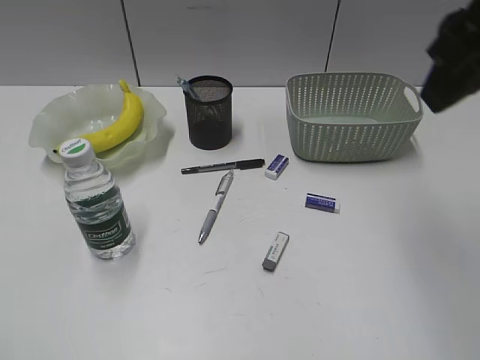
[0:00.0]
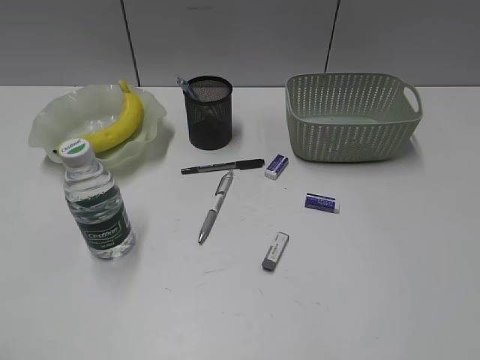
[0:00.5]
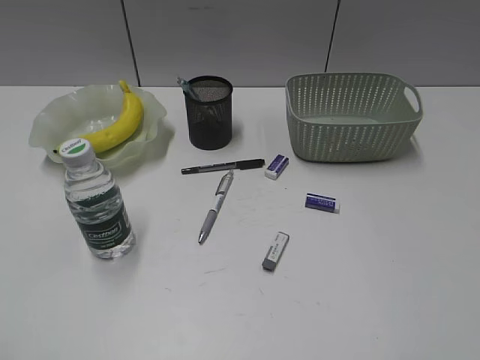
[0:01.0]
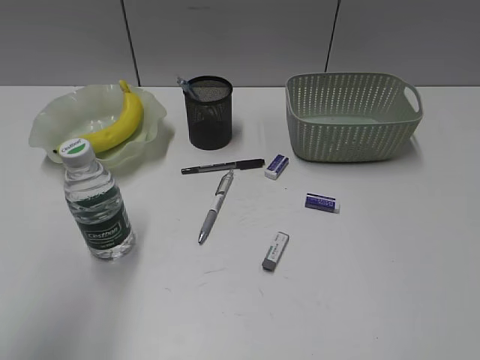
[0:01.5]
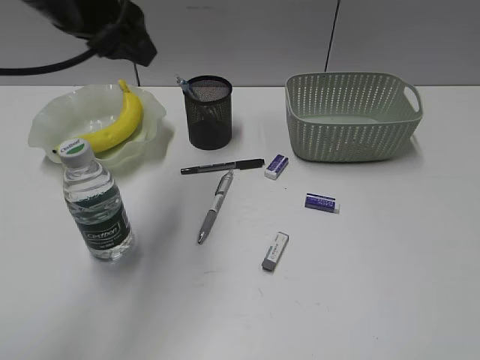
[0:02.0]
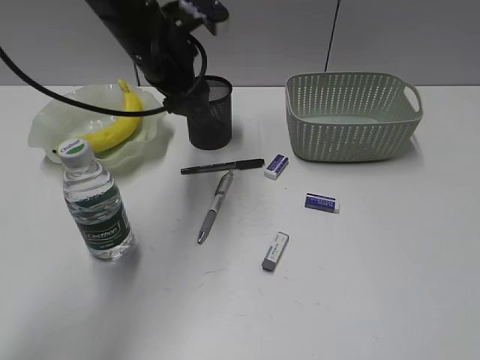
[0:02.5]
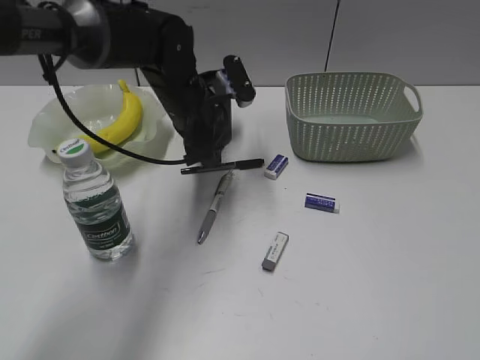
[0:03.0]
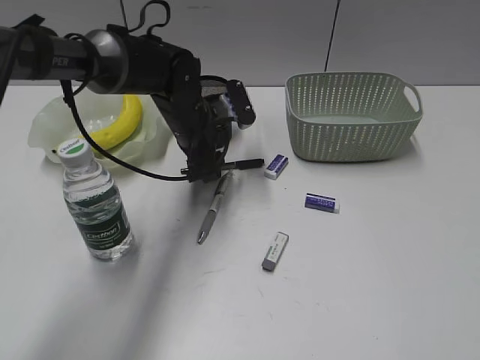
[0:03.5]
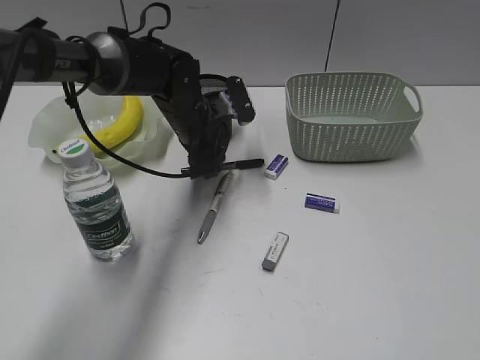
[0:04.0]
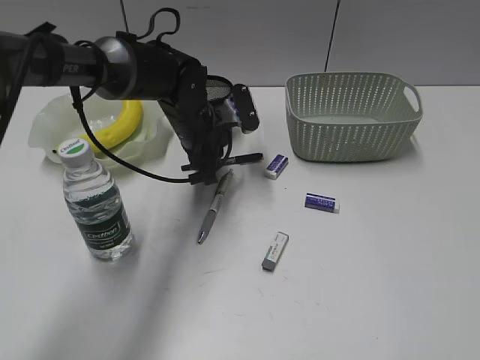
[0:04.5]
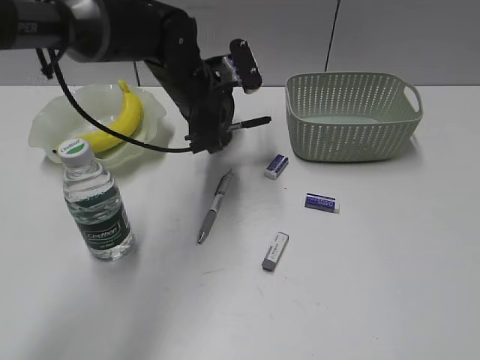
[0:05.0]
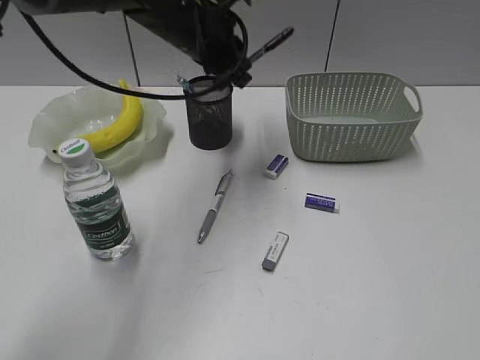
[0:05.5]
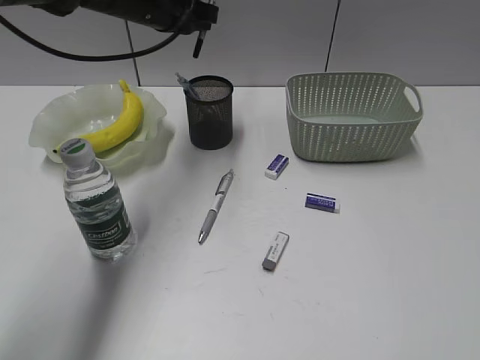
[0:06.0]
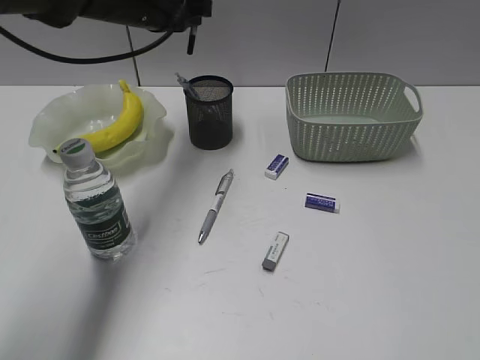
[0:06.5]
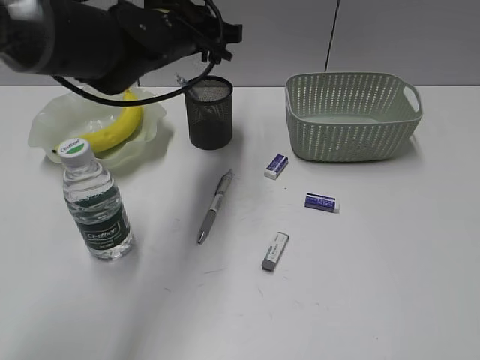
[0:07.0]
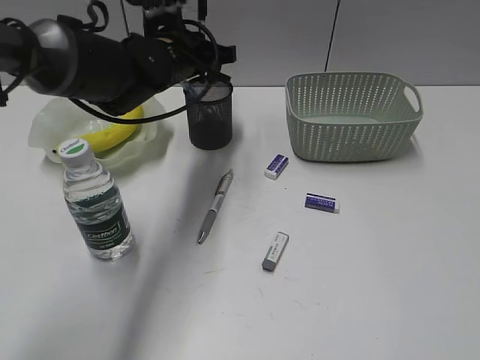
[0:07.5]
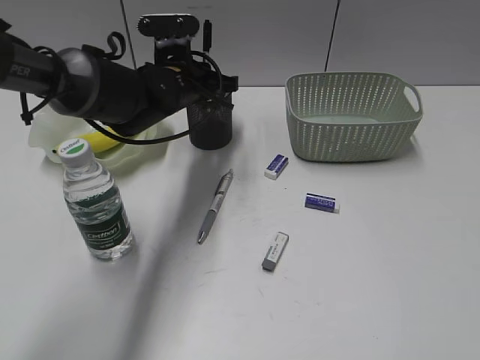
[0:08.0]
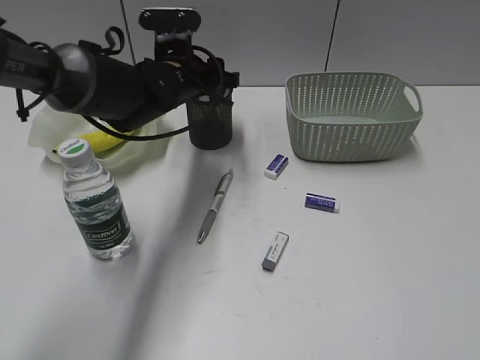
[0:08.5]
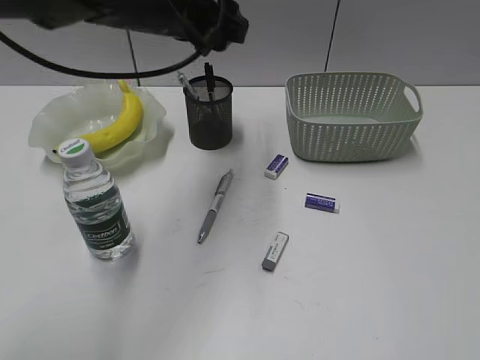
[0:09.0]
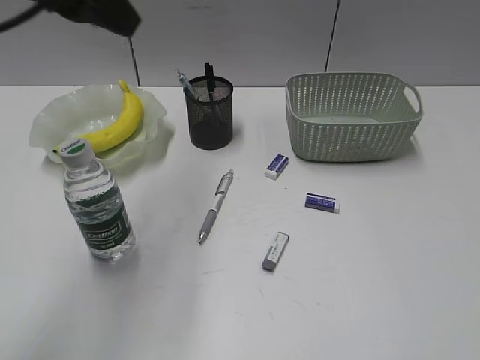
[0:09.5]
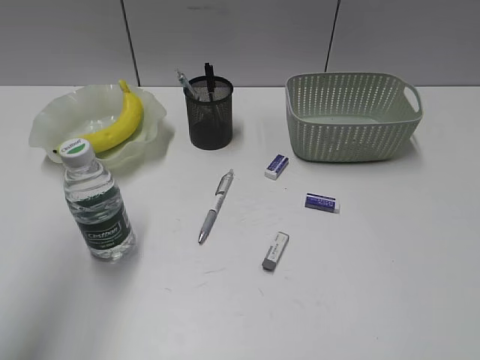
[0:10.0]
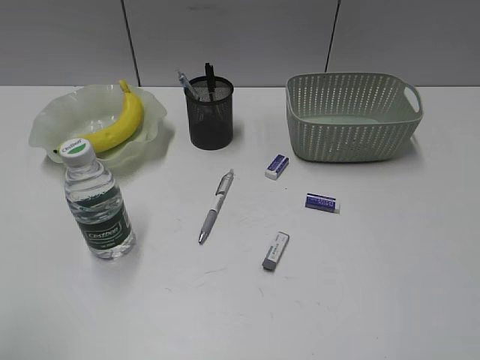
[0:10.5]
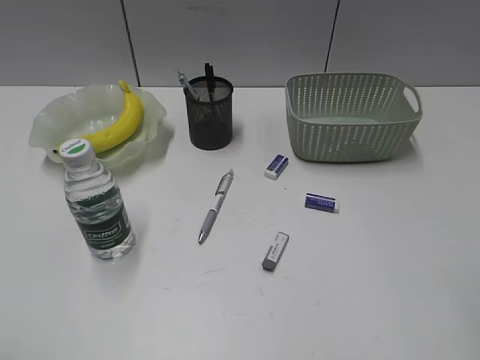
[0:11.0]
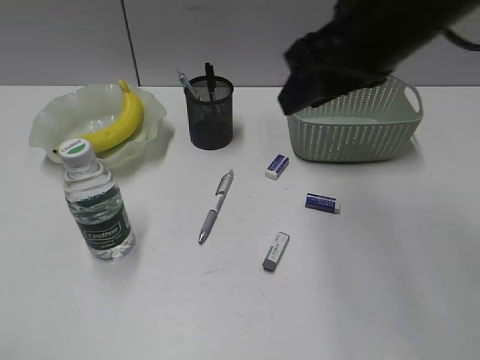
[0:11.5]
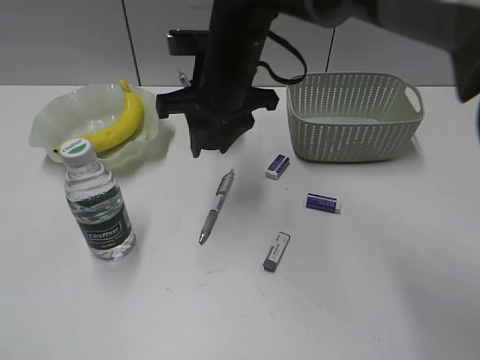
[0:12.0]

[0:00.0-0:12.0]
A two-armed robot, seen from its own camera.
Step, 0:00.0 to 0:04.0: Grasp the black pen with left gripper.
Step, 0:04.5 to 0:08.5: Place the black pen in pen holder with left gripper.
0:00.0 to 0:02.0: The left gripper goes about 35 cm forward and to the right, while the right gripper goes some 25 cm backward and to the right.
0:02.0 to 0:04.0: The left gripper moves downward, forward and to the right, about 25 cm.
0:04.0 to 0:06.0: The left gripper heads upward, covering some 15 cm, and closes up.
0:06.0 to 0:08.0: The left gripper goes roughly 10 cm downward.
0:08.0 to 0:10.0: The left gripper shifts approximately 40 cm backward, upward and to the left, and opens its fingers.
0:10.0 to 0:12.0: The right gripper heads forward and to the left, covering about 50 cm. Meanwhile the left gripper moves backward and downward, roughly 25 cm.

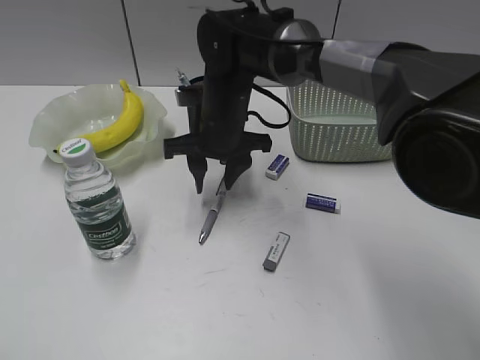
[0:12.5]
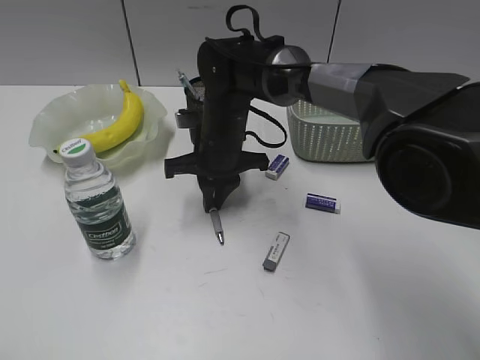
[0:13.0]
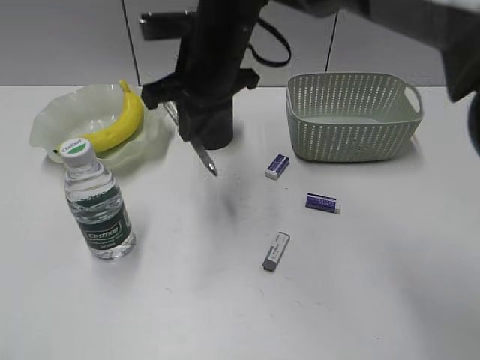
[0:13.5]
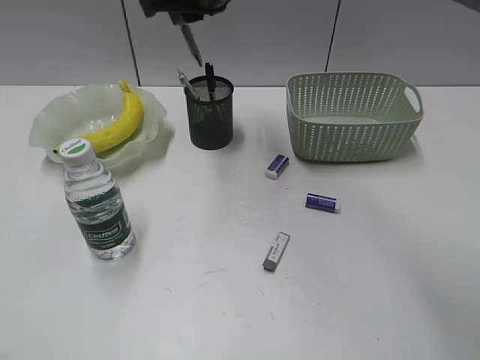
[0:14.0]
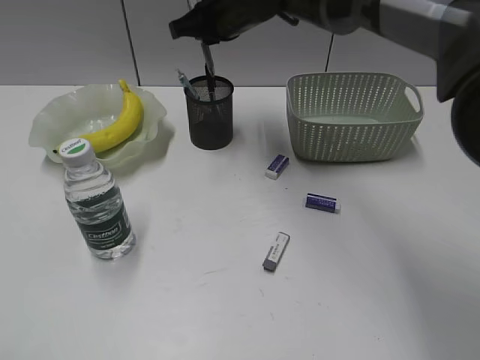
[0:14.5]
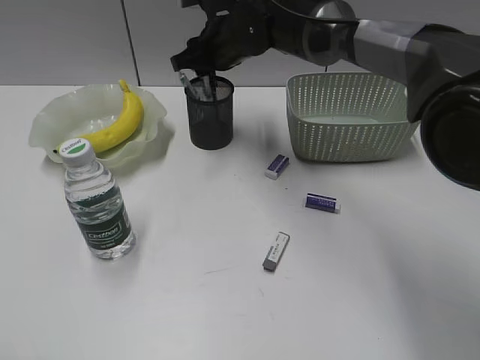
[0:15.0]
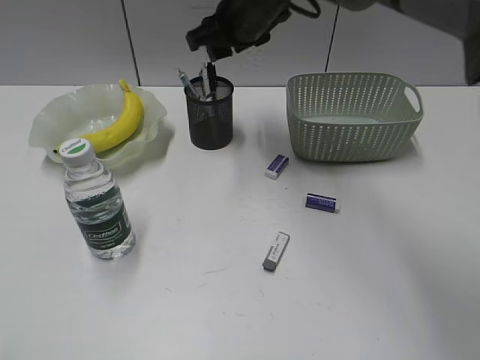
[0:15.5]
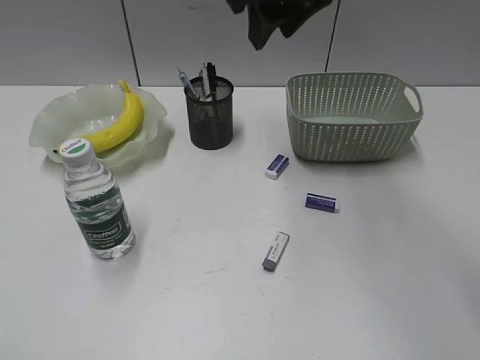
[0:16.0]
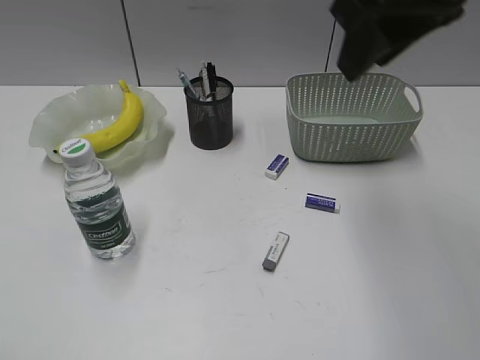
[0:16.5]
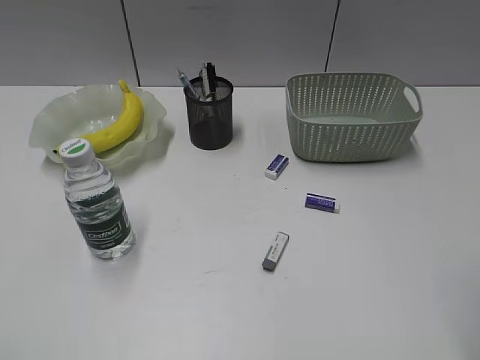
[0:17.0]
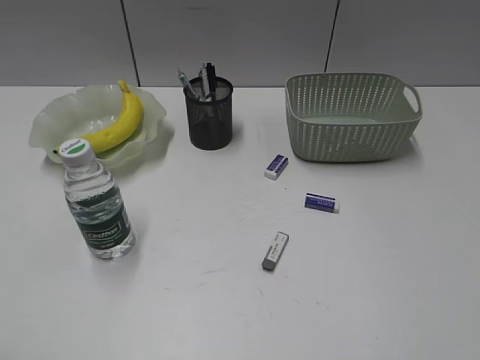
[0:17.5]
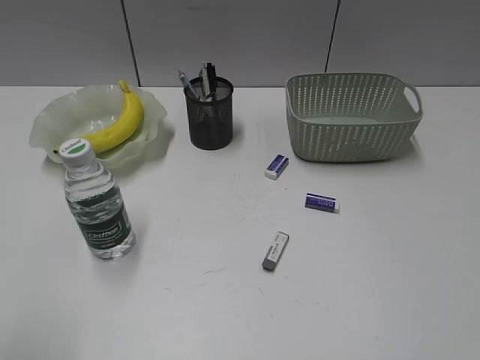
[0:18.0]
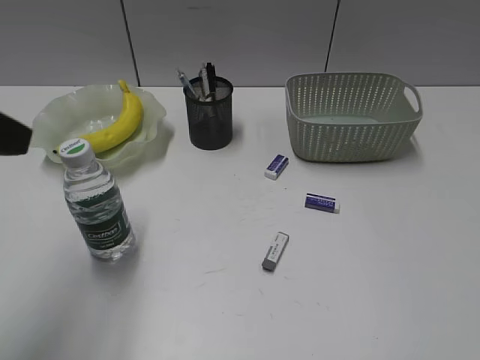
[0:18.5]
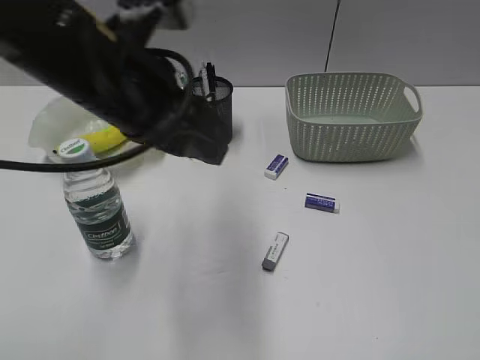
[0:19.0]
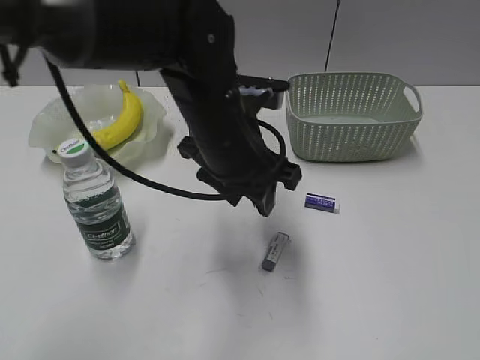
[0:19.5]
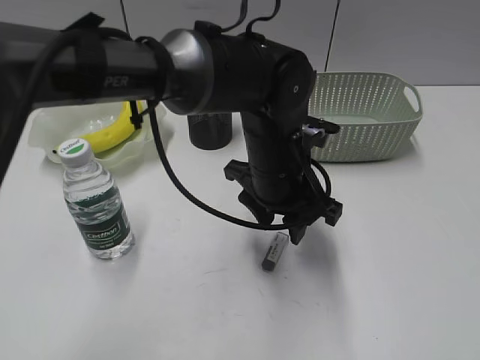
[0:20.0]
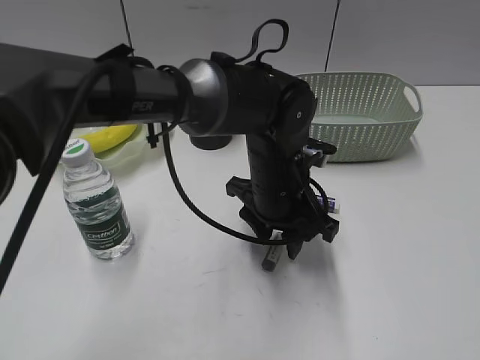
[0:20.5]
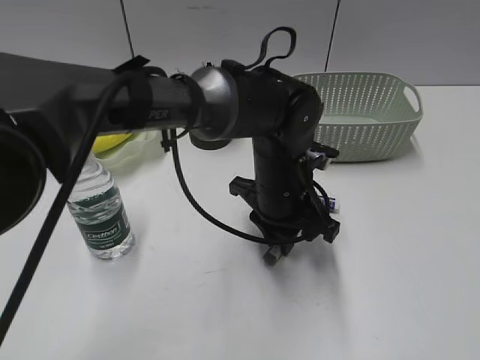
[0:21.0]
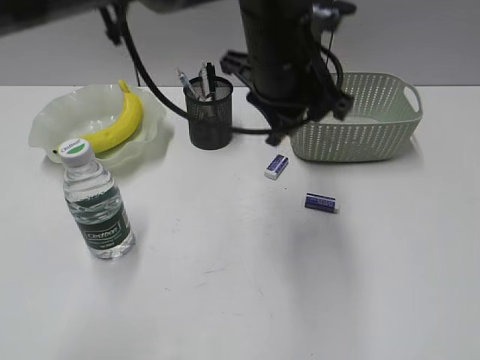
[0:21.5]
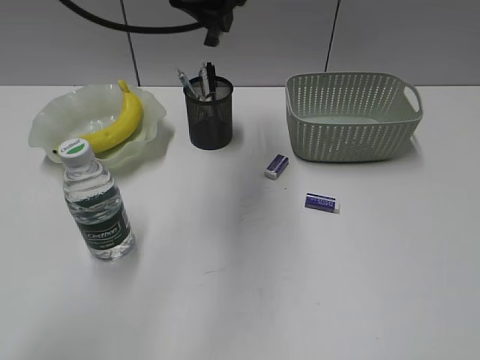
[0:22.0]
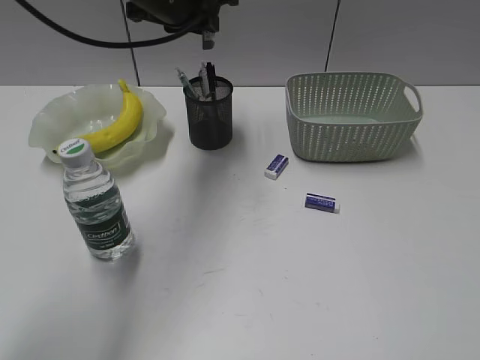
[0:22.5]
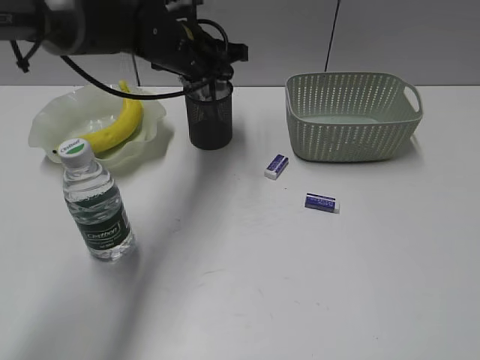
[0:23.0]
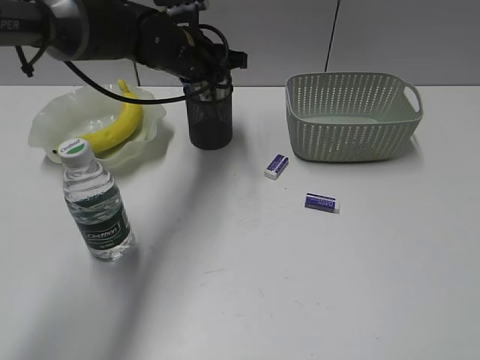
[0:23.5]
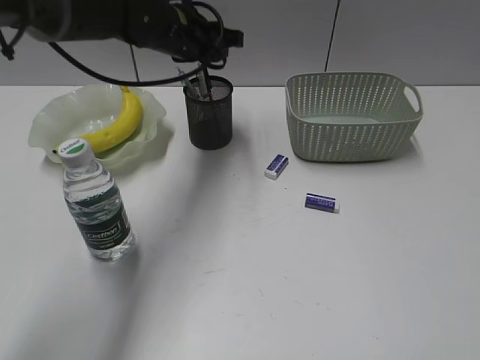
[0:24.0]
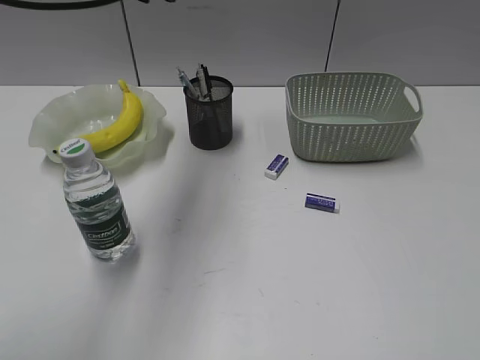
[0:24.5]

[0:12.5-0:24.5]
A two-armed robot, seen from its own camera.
Step, 0:13.5 to 0:15.0: Place the gray pen in pen holder with right gripper.
Step, 0:15.5 to 0:20.5: Grasp the eraser with left gripper.
Step, 0:21.0 to 0:23.5: Place the eraser in pen holder with left gripper.
0:12.5 to 0:14.5: The right gripper shifts about 10 cm upward and forward, and closes up.
0:14.5 to 0:16.5: The right gripper moves backward, upward and to the right, roughly 30 cm, and opens.
0:16.5 to 0:18.5: The left gripper moves forward, about 20 cm. Meanwhile the right gripper goes some 35 cm backward and to the right.
0:18.5 to 0:20.5: The left gripper heads to the right, downward and forward, covering approximately 35 cm.
0:20.5 to 0:22.5: The left gripper goes about 25 cm upward, forward and to the left, and closes up.
0:22.5 to 0:24.5: The left gripper goes some 5 cm upward.

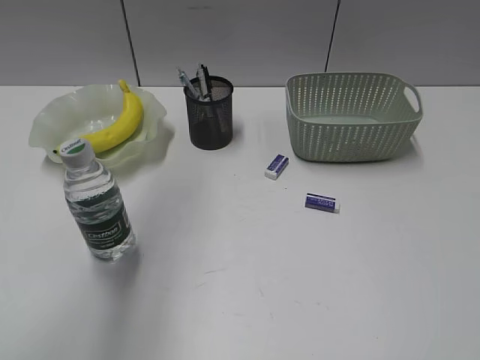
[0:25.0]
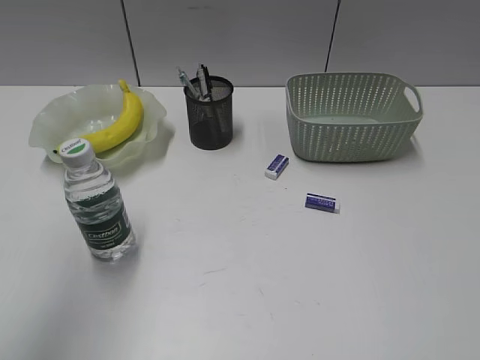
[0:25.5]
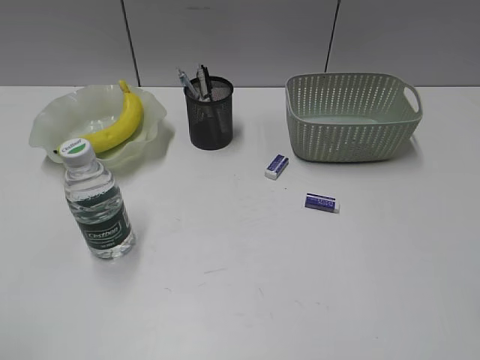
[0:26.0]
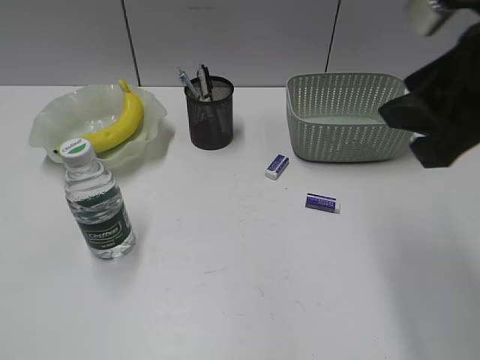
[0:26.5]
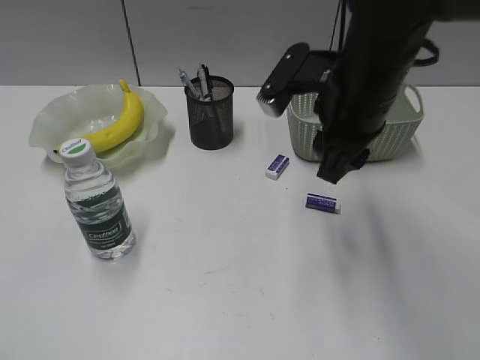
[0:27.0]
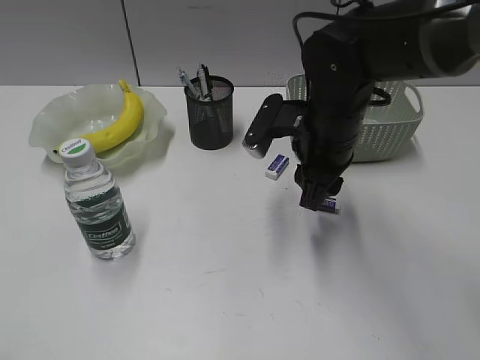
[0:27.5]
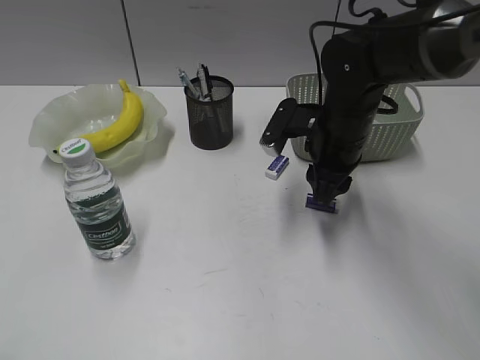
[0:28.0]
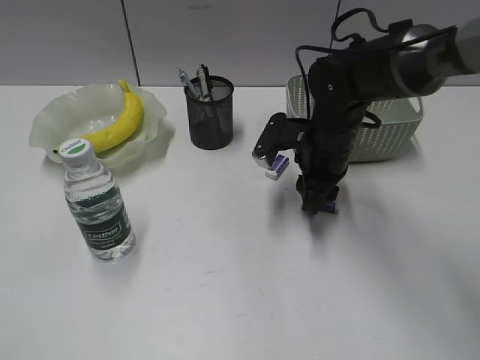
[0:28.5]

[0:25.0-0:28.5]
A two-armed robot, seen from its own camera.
0:25.0 to 0:27.0: The right gripper moves forward and to the left, about 35 cm; the left gripper moves backward, to the left and downward, roughly 35 cm.
0:27.0 to 0:28.5: The right gripper moves downward and forward, roughly 15 cm.
